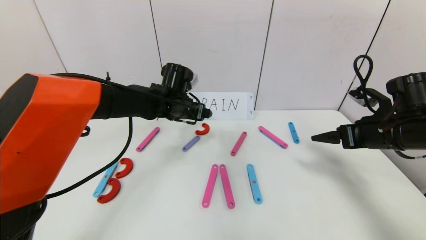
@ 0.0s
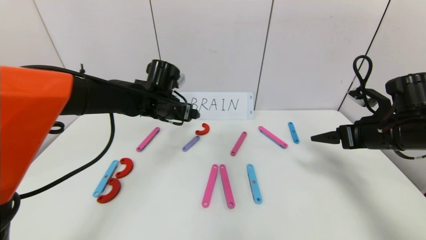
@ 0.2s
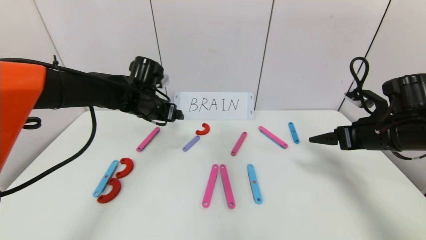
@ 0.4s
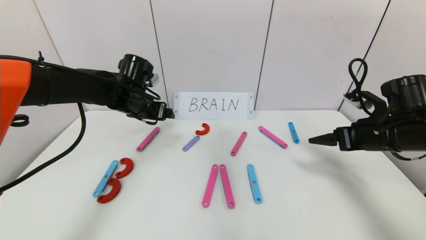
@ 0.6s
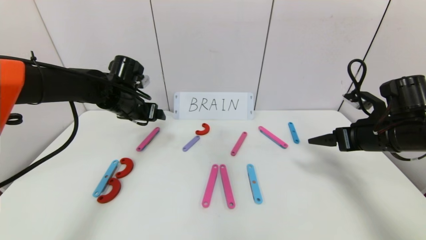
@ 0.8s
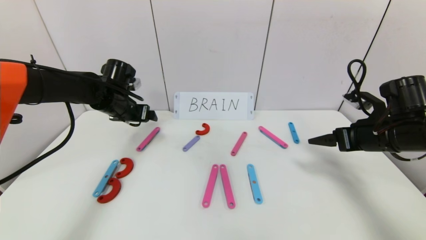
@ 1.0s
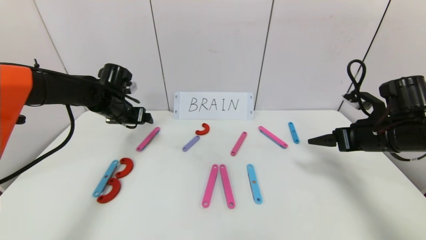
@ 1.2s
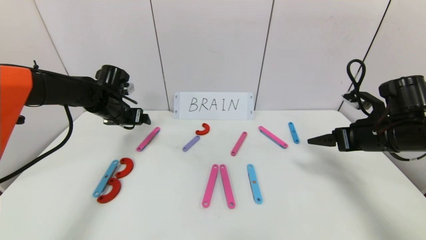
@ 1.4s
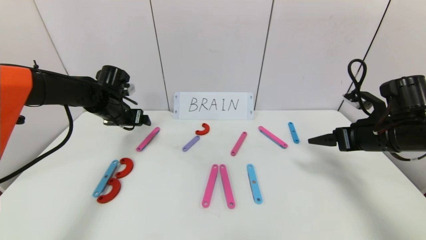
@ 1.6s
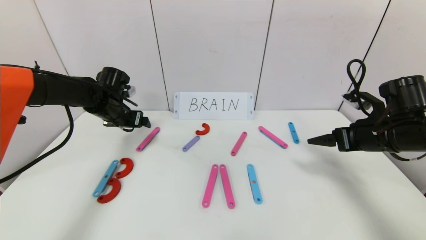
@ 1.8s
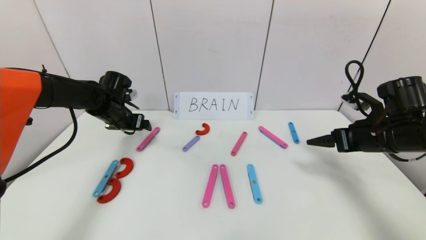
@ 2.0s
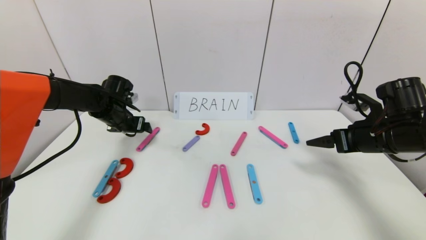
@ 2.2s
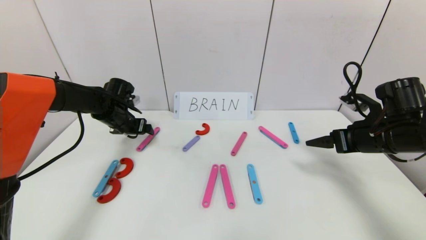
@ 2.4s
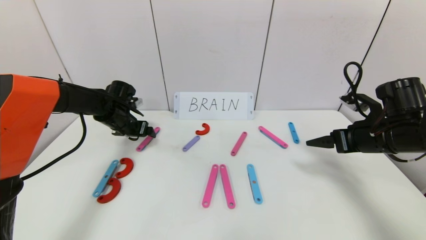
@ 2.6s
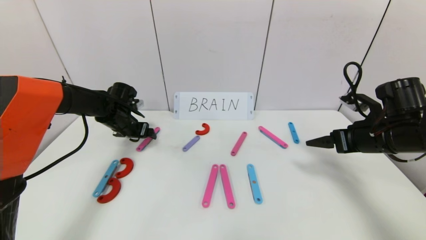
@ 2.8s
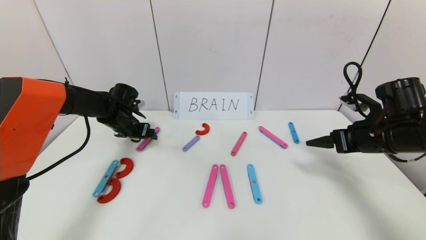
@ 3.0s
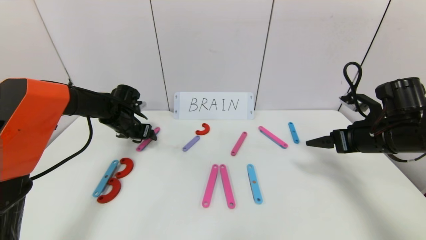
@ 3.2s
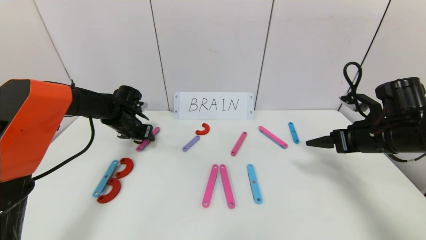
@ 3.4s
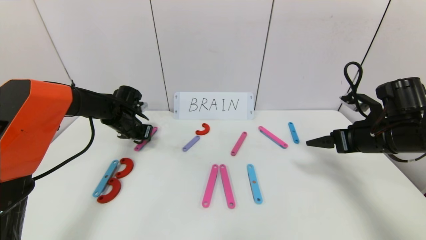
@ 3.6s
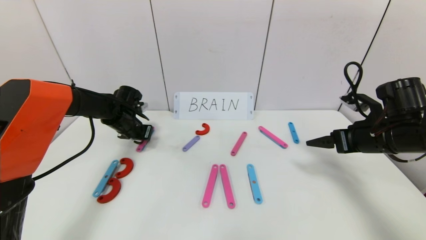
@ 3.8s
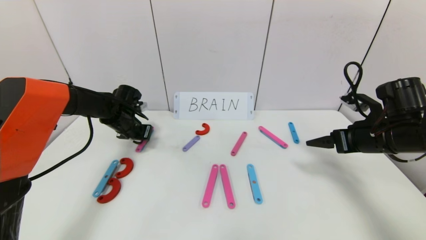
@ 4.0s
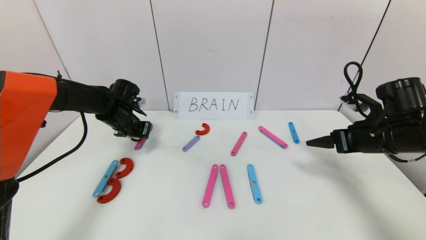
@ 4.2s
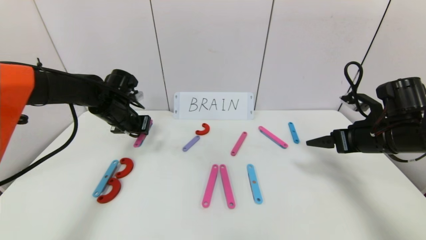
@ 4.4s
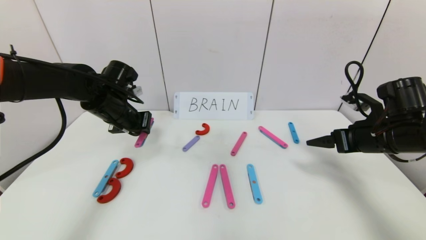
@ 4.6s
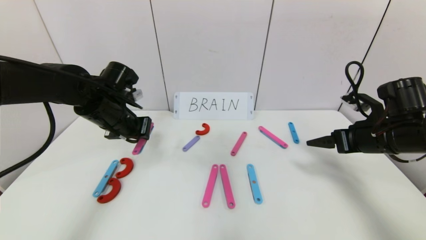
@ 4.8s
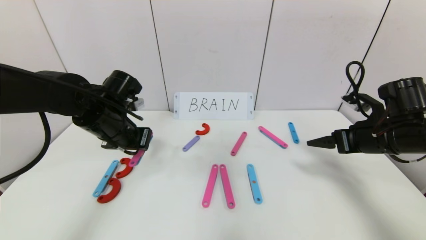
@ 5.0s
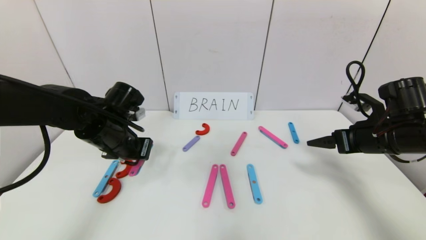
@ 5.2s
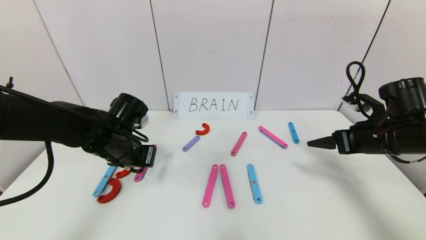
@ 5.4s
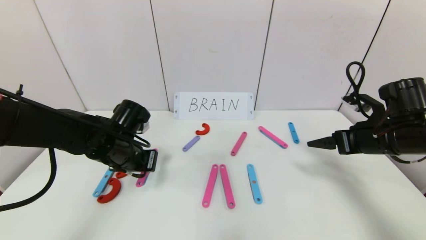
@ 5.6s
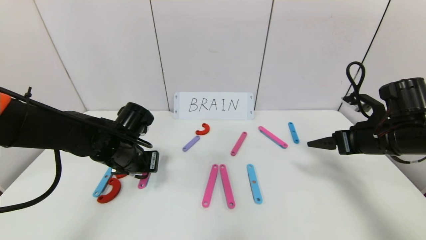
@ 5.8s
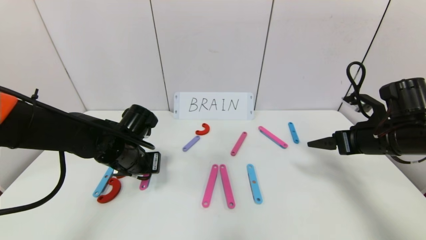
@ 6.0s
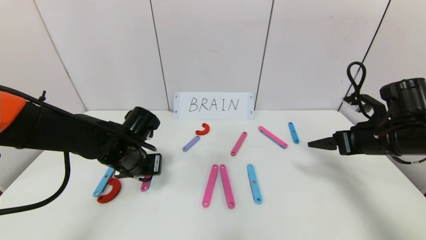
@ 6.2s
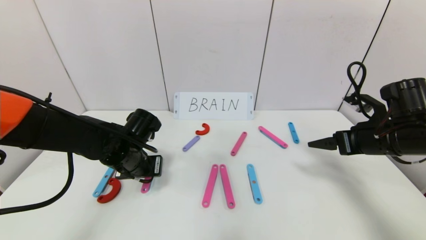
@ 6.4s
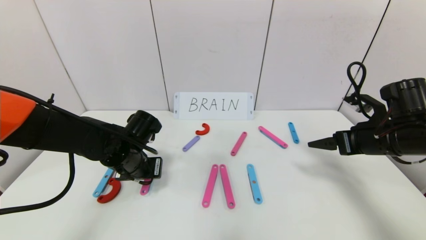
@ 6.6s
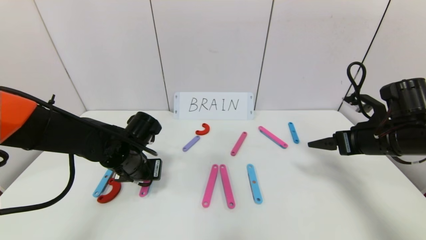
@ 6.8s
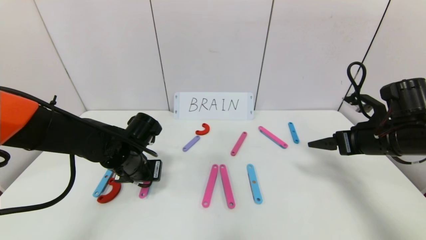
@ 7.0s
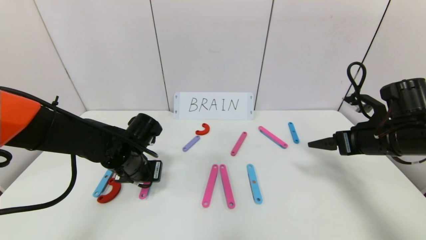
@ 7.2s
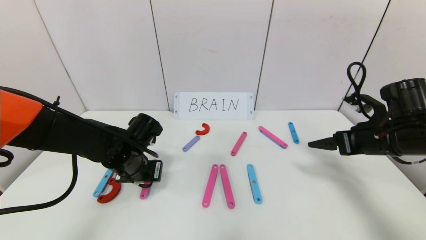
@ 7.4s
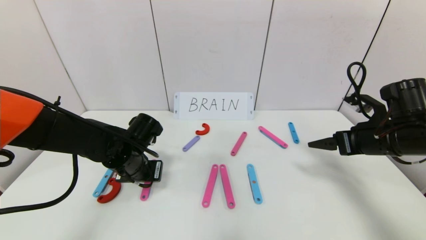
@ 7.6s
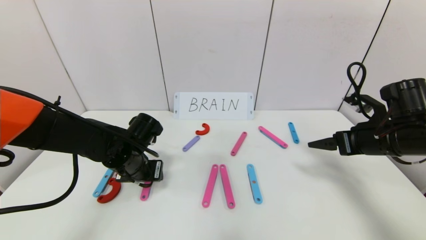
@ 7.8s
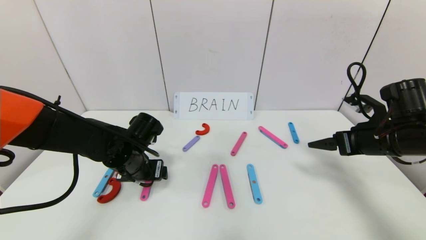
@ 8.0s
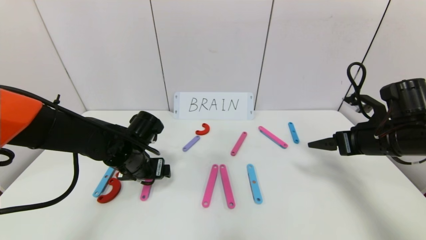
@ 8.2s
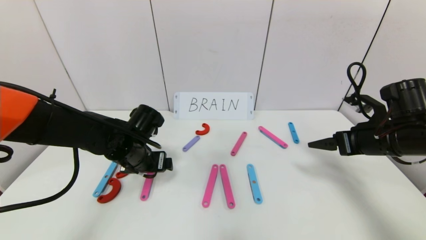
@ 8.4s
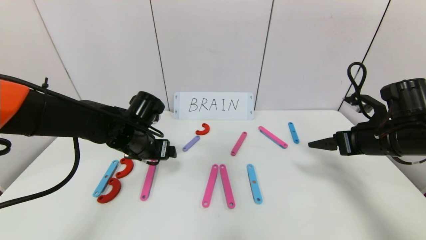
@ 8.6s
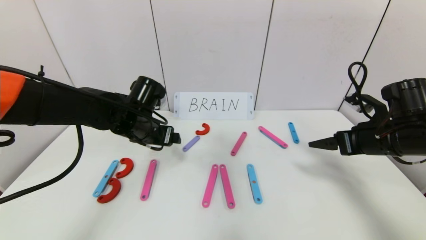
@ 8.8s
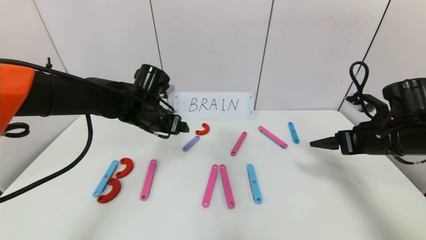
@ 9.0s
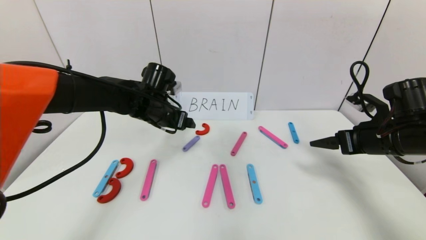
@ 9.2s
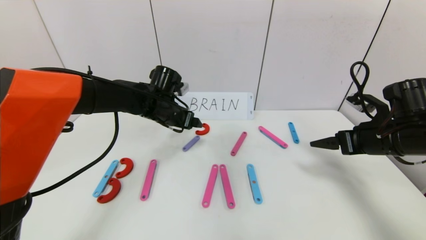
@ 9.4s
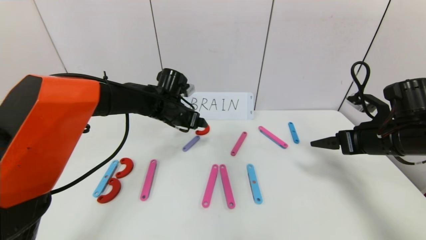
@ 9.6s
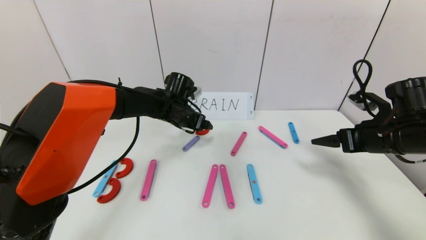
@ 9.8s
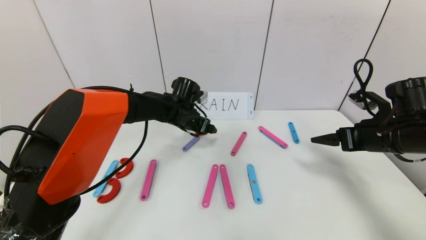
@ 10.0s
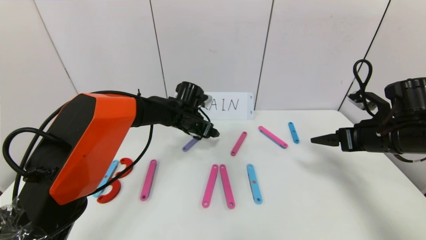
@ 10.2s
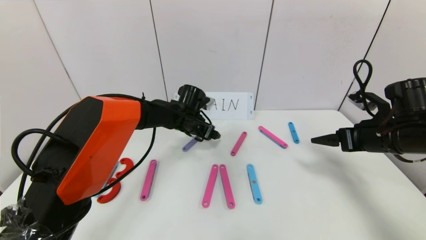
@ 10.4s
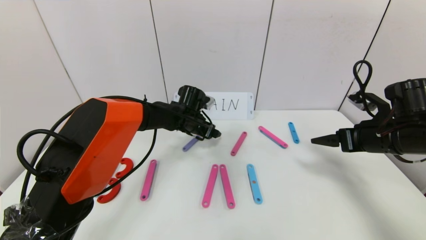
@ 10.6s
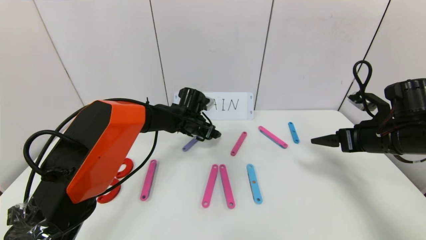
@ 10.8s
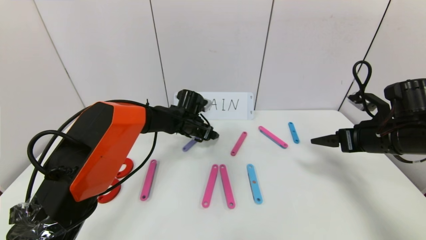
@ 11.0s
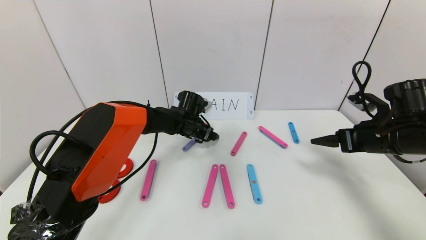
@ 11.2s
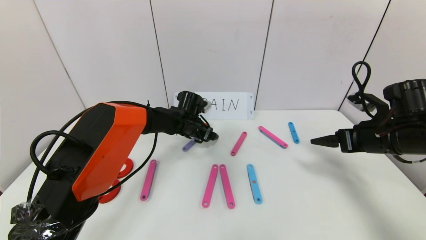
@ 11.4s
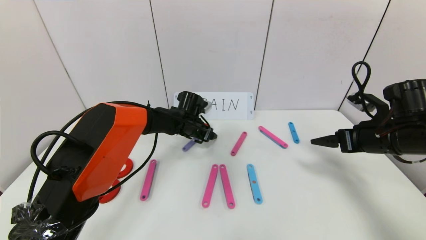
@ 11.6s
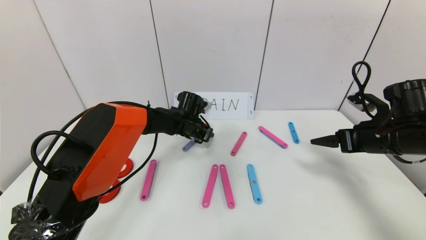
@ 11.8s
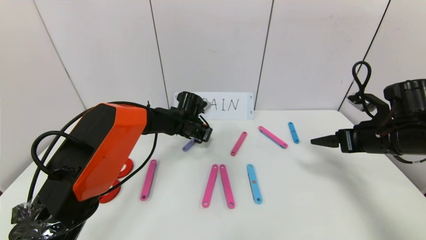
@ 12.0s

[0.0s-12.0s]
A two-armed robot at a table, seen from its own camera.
Task of the whole recording: rearrange the word baai as brain.
0.0s to 1.6s: The left gripper goes about 15 cm to the left.
1.6s to 3.0s: The left gripper goes roughly 5 cm downward.
3.0s to 4.4s: The left gripper goes approximately 5 cm upward, and closes up.
4.4s to 6.0s: The left gripper moves backward, to the right and downward, some 10 cm.
6.0s to 7.6s: The grippers make only small movements.
7.6s to 9.0s: The left gripper travels upward and forward by some 10 cm, and opens its fingers.
9.0s to 10.4s: The left gripper is displaced forward, to the right and downward by approximately 15 cm.
10.4s to 12.0s: The left gripper closes its fingers.

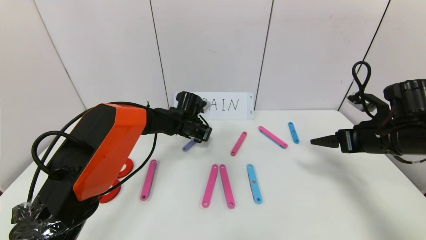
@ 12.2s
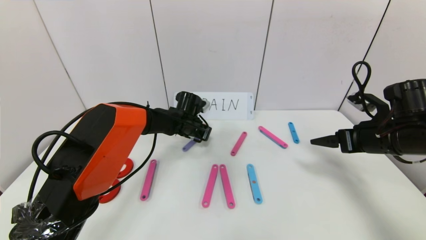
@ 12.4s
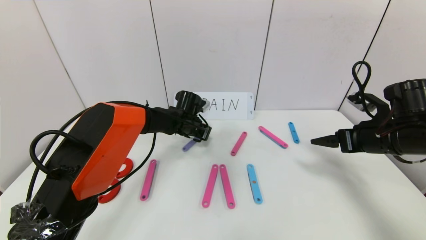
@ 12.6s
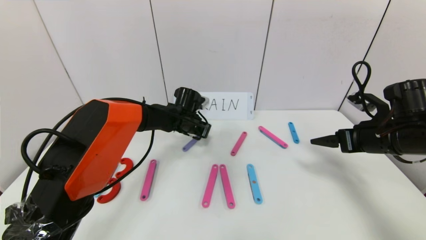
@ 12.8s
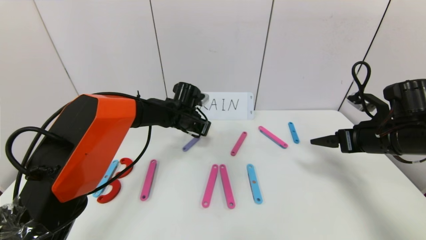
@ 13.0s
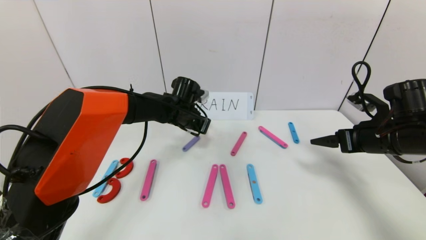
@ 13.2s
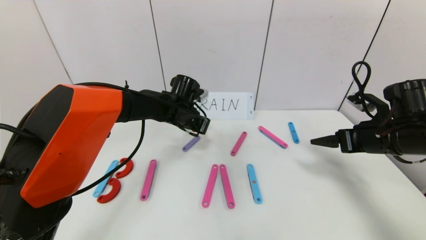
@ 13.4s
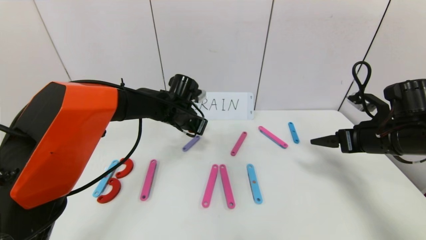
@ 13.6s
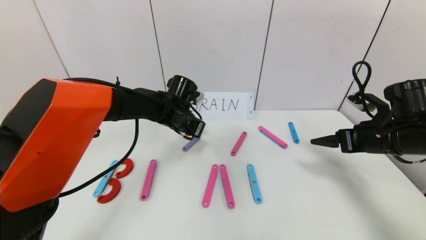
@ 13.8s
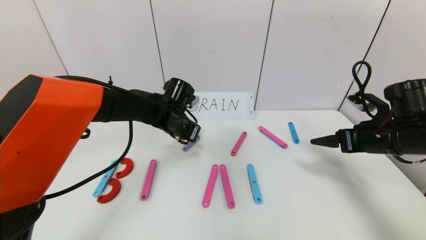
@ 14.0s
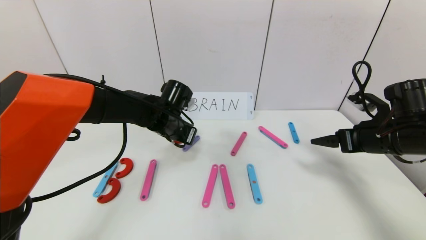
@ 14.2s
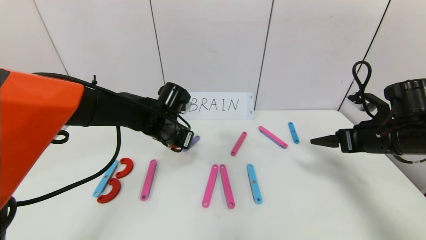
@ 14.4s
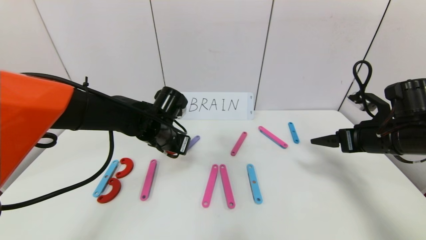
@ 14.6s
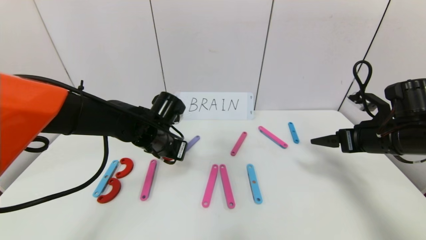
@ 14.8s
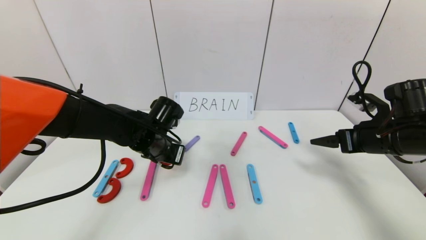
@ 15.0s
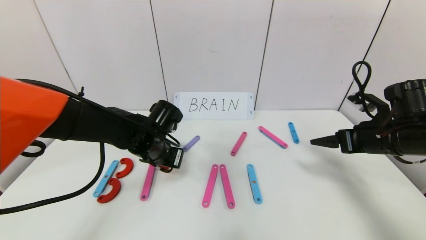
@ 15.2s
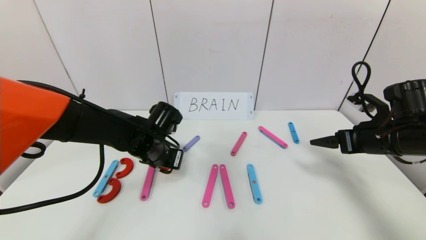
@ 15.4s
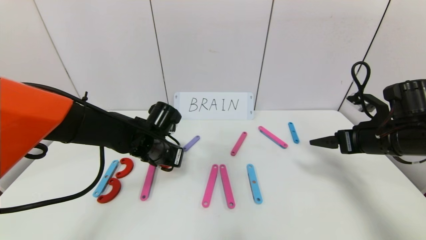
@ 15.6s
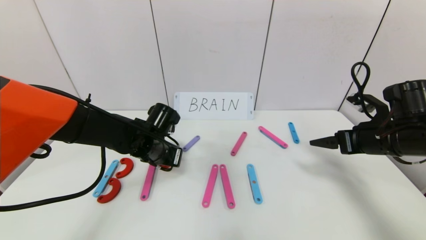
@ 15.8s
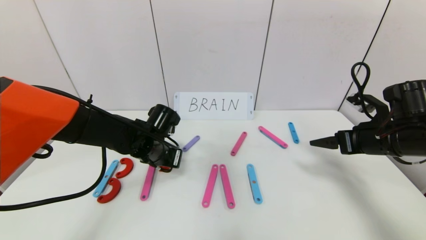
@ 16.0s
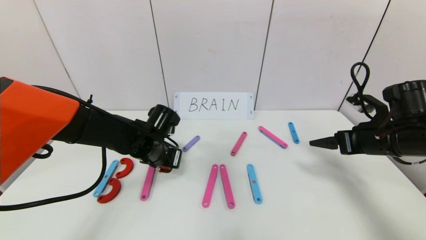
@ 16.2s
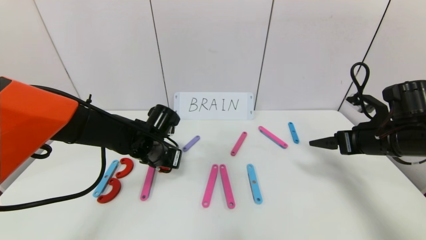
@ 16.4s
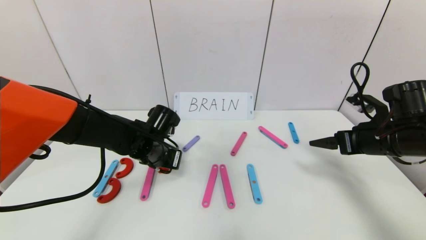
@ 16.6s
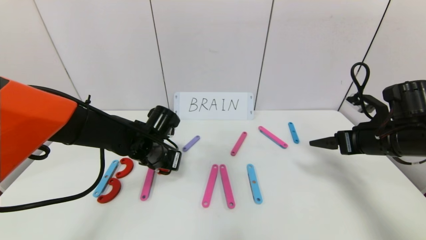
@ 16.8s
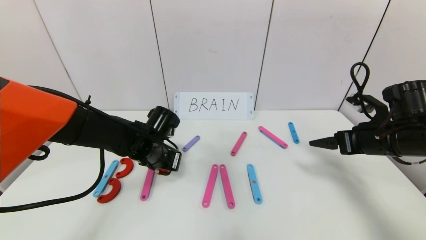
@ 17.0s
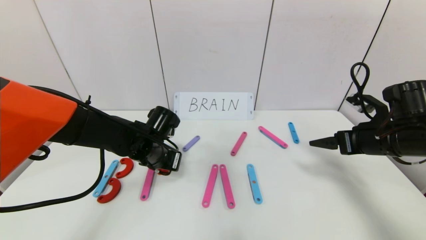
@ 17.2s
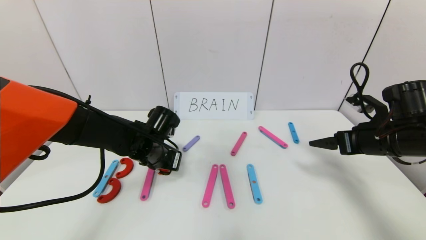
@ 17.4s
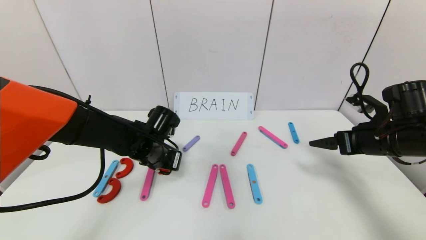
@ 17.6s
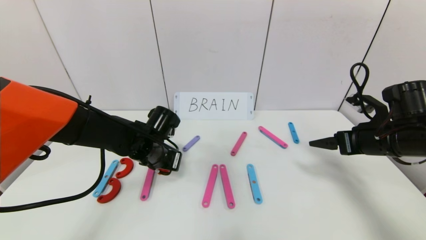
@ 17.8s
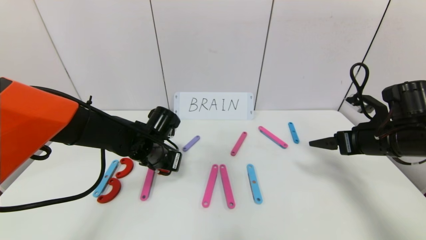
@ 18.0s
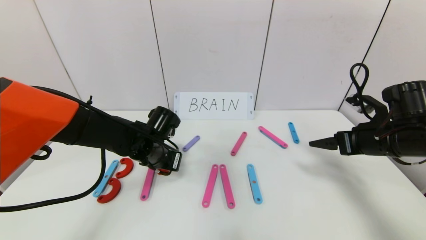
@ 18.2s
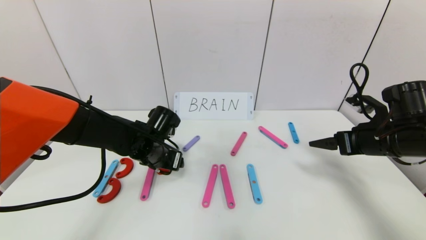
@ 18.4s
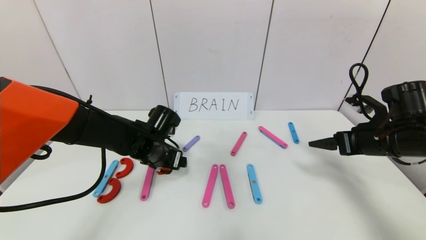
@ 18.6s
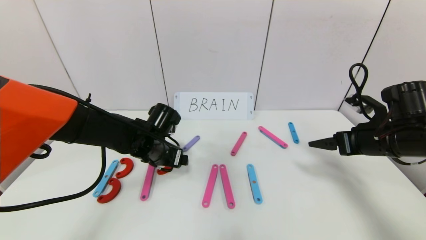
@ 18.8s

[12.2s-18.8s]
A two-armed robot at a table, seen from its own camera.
Task of the whole recording: rearrange the word baai as brain.
12.2s to 13.8s: The left gripper travels upward and backward by approximately 10 cm.
13.8s to 15.4s: The left gripper goes roughly 10 cm backward.
15.4s to 17.2s: The grippers move only a little.
17.2s to 18.8s: The left gripper opens its fingers.
